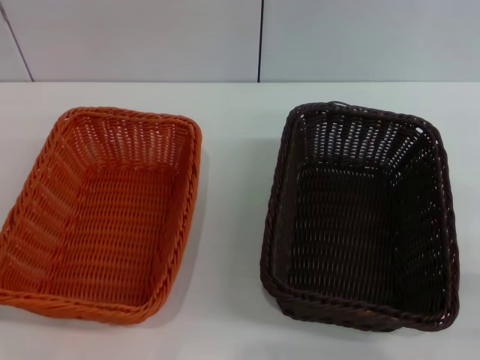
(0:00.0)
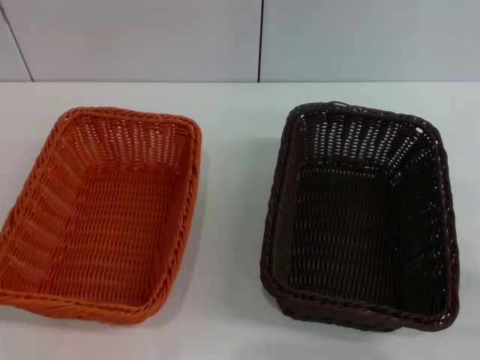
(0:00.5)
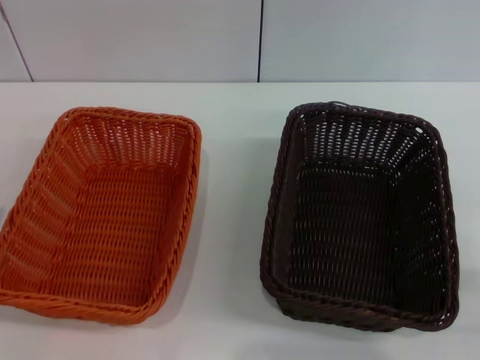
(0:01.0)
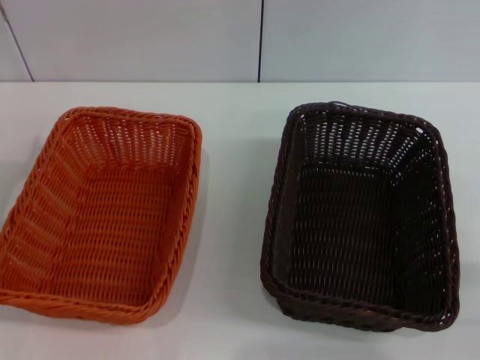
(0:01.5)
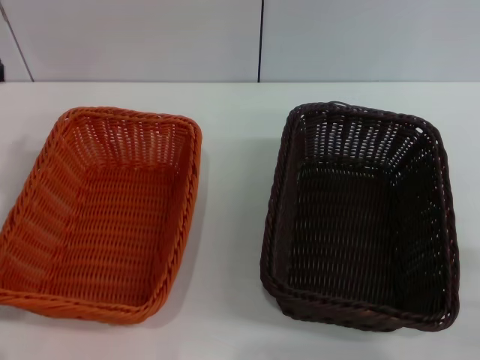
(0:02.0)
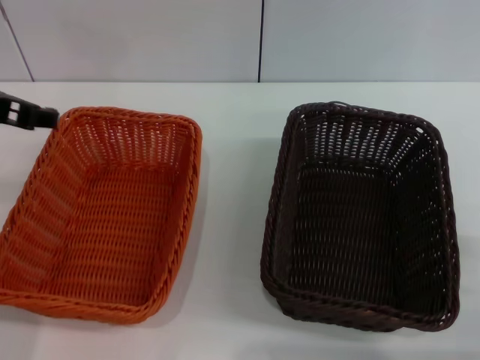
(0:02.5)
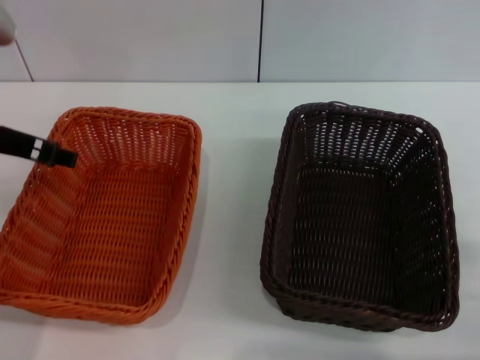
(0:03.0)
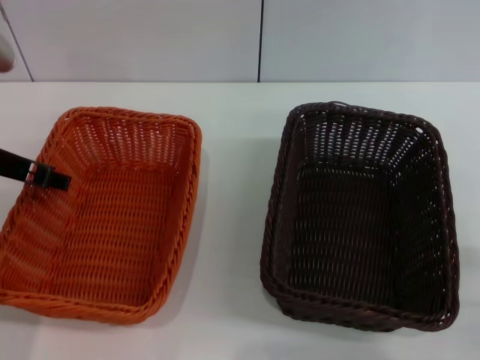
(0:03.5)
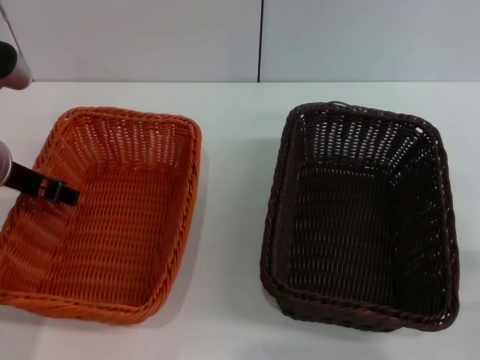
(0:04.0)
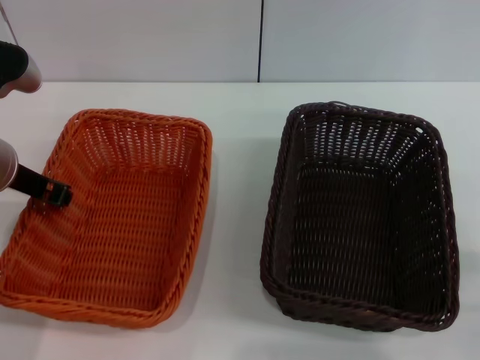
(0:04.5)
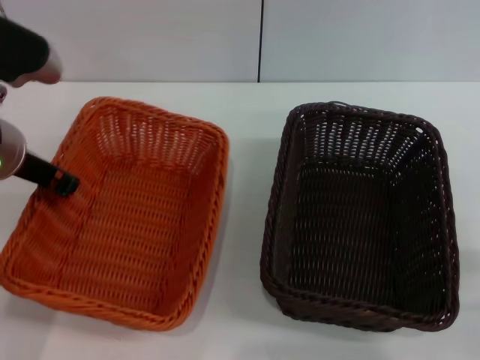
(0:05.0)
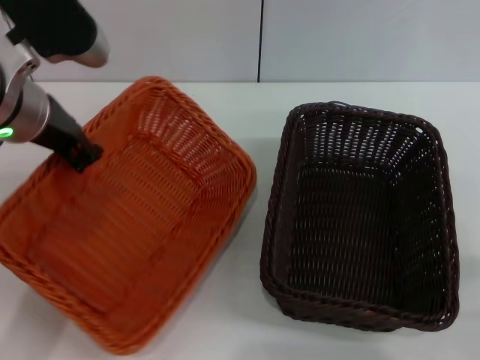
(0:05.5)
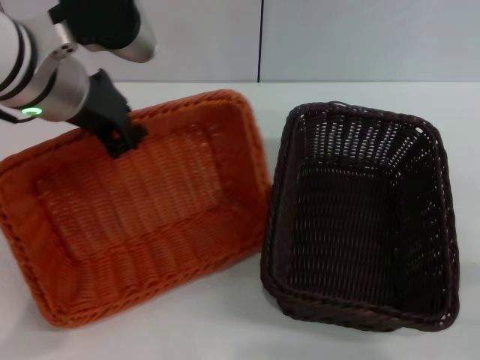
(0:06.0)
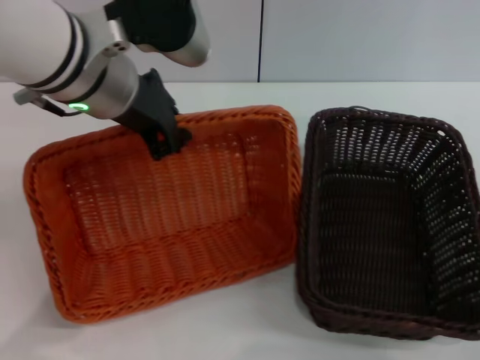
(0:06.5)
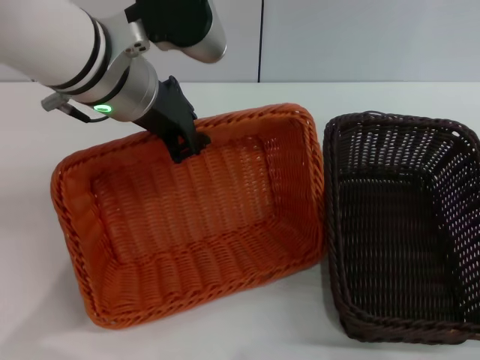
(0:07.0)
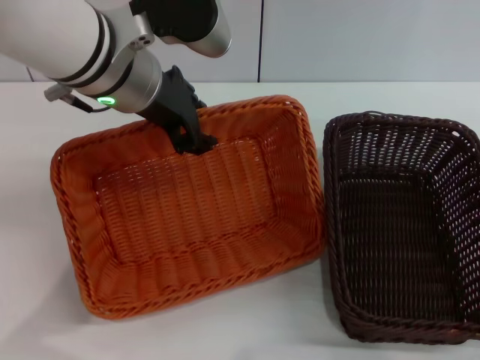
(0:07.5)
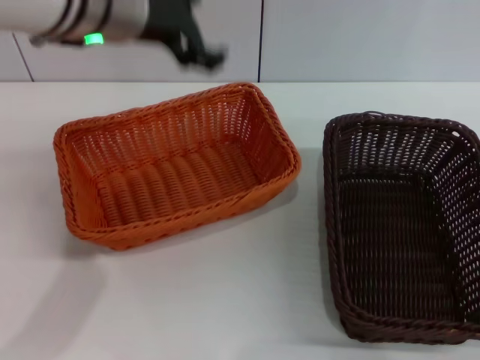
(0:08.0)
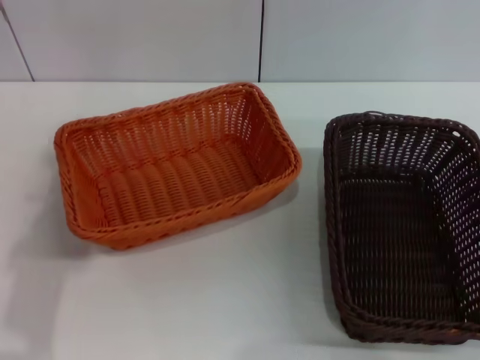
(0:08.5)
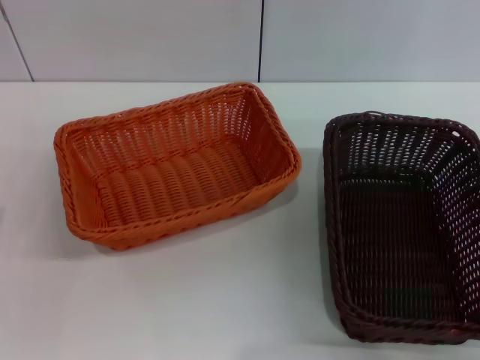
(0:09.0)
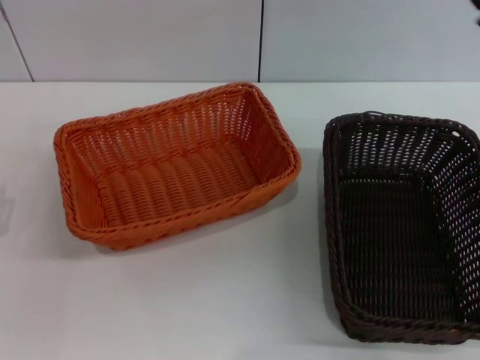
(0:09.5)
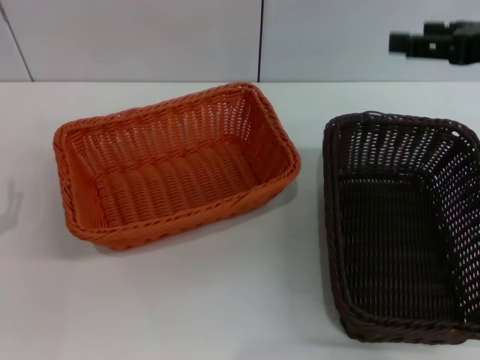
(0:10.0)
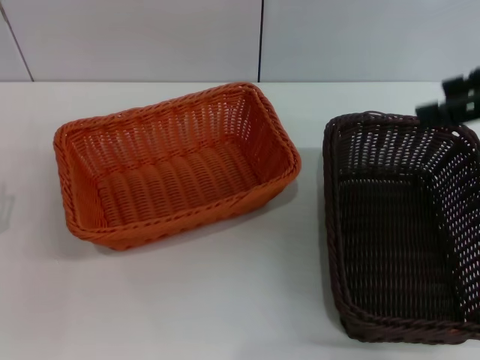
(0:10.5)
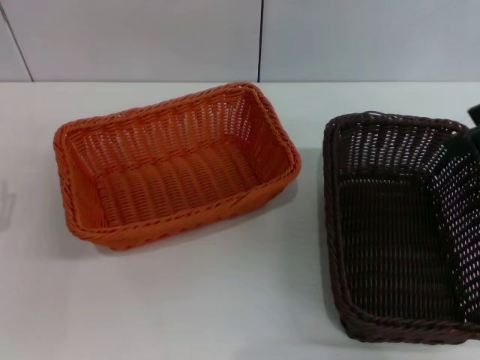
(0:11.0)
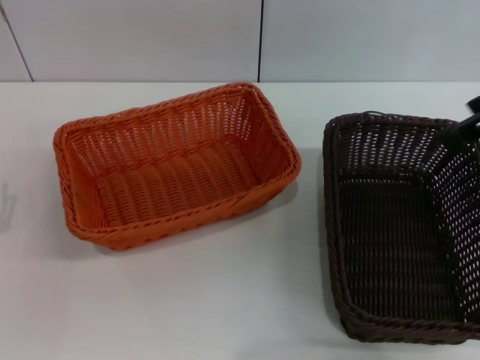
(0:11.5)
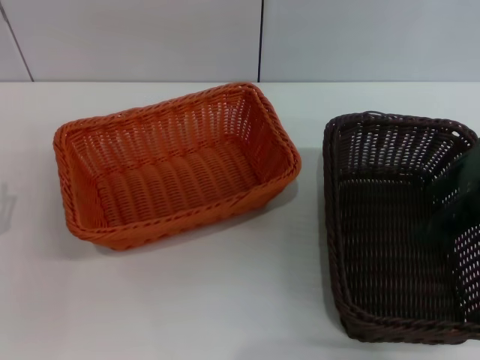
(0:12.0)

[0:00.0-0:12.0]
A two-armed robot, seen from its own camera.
Step, 0:00.0 to 0:05.0: Pick up the light basket with the left gripper.
Step, 0:05.5 to 0:07.5: Place the light basket in the center of view with the left gripper.
0:02.0 to 0:04.0: The left gripper travels downward by about 5 cm.
0:04.0 to 0:06.0: The left gripper moves upward and to the right, about 10 cm, and closes.
0:06.0 to 0:08.0: The left gripper moves approximately 5 cm, and opens.
0:08.0 to 0:10.0: The right gripper shifts approximately 25 cm upward and forward, while the left gripper is displaced downward, to the left and backward by approximately 35 cm.
0:10.0 to 0:12.0: The right gripper is displaced to the left by approximately 5 cm.

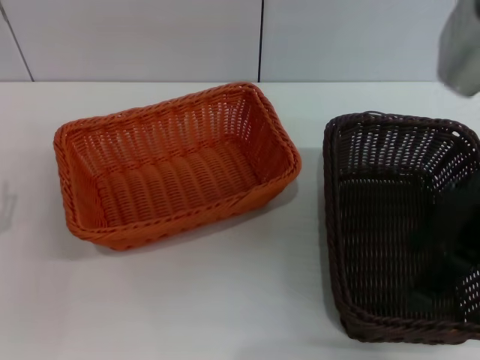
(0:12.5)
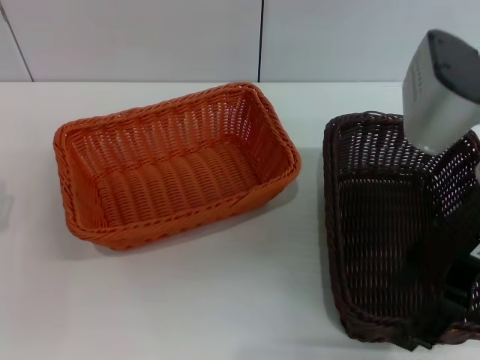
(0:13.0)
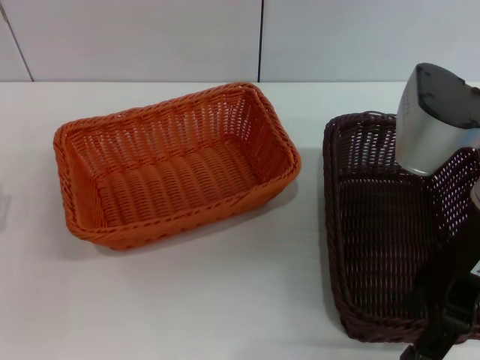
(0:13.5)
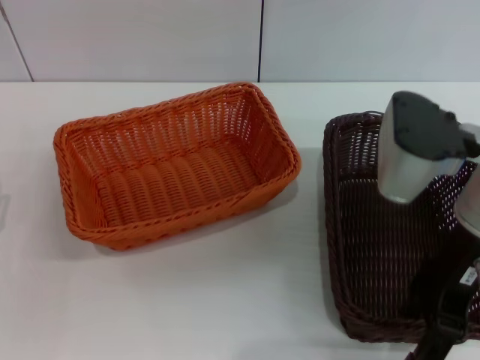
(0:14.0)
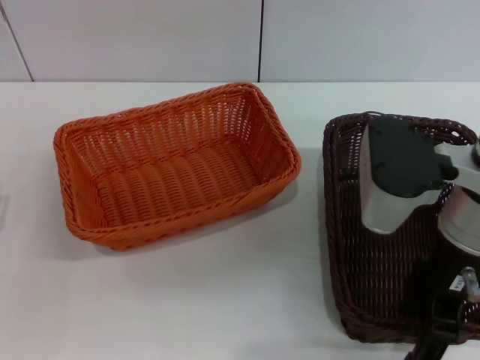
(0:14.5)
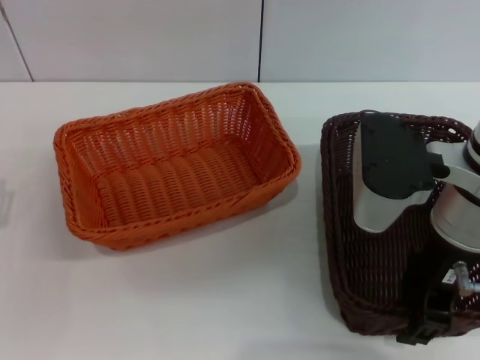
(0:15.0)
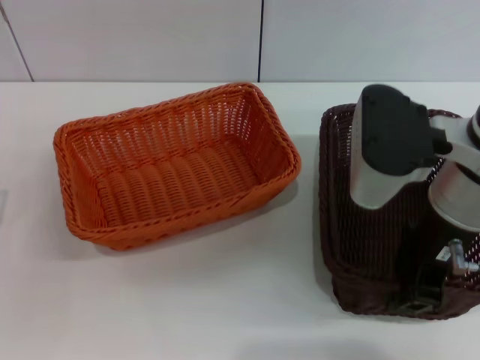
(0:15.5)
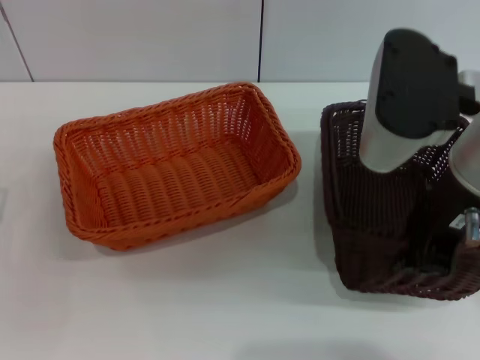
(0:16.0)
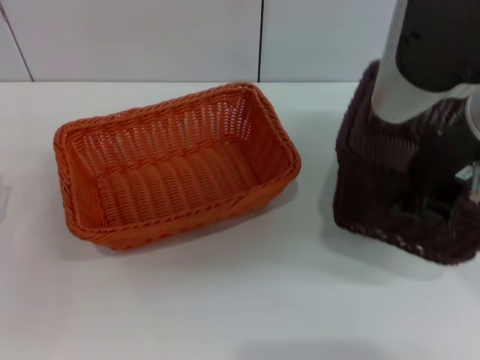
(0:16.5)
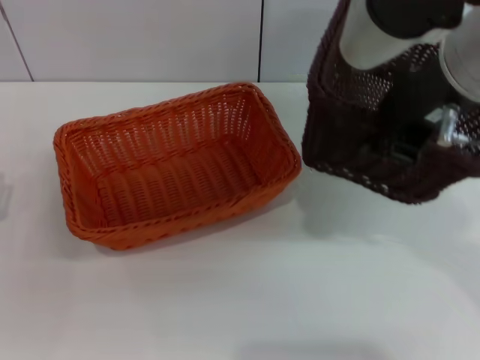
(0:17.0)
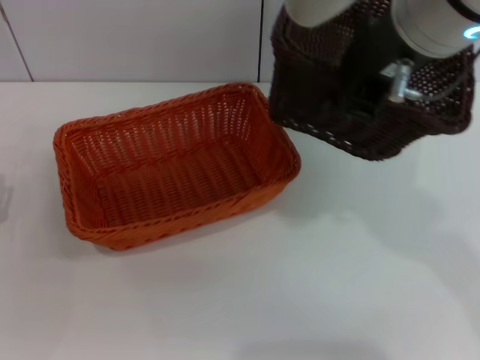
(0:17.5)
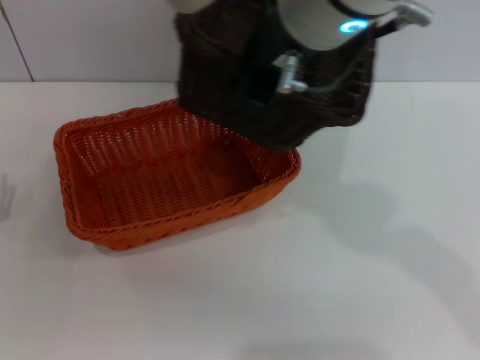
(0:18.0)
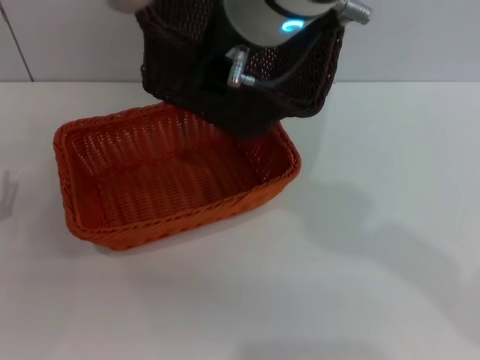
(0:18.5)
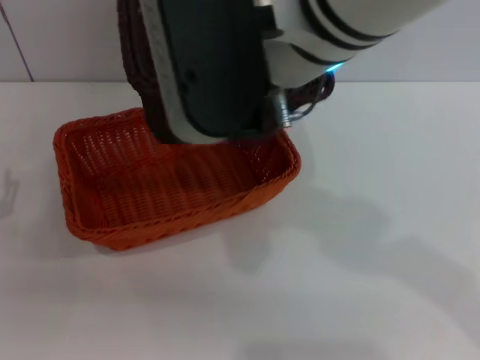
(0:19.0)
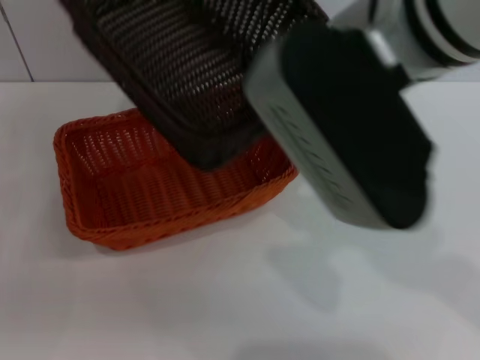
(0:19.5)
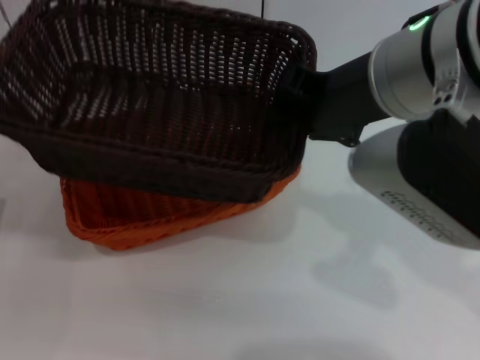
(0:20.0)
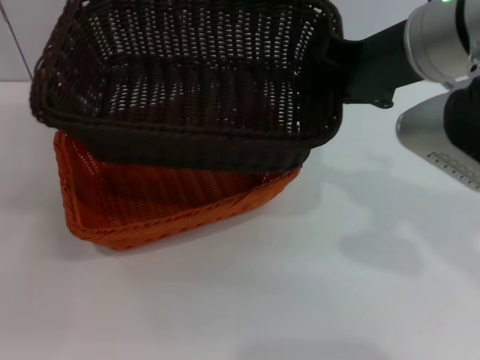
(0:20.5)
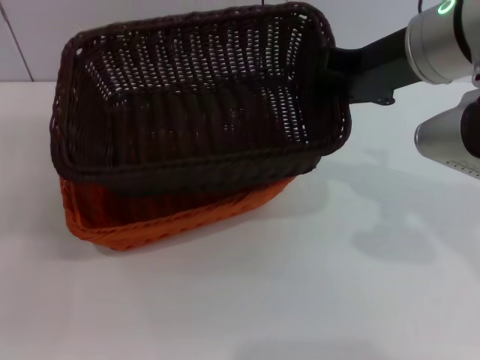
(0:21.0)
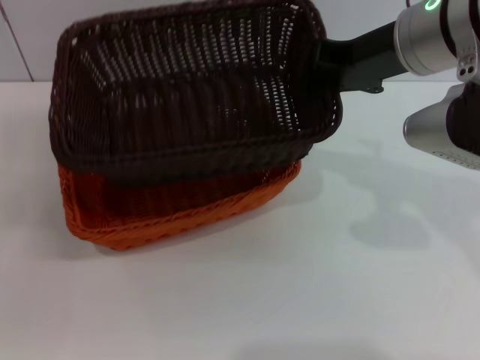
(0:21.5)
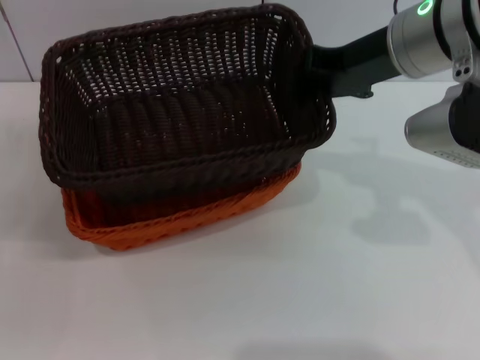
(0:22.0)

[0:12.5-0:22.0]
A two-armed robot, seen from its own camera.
Step, 0:12.5 to 0:16.0: Pick up the dark basket with the right gripper.
0:12.5 to 0:14.5: The right gripper is displaced downward by about 10 cm.
0:14.5 to 0:16.5: The right gripper goes roughly 10 cm upward, and closes up.
0:16.5 to 0:18.0: The right gripper heads to the left, covering some 10 cm.
0:18.0 to 0:20.0: The right gripper moves to the right, some 5 cm.
0:20.0 to 0:22.0: The right gripper travels forward by about 10 cm.

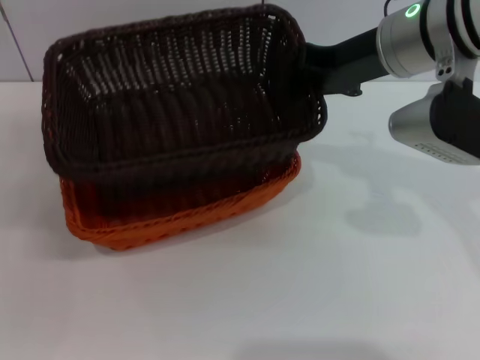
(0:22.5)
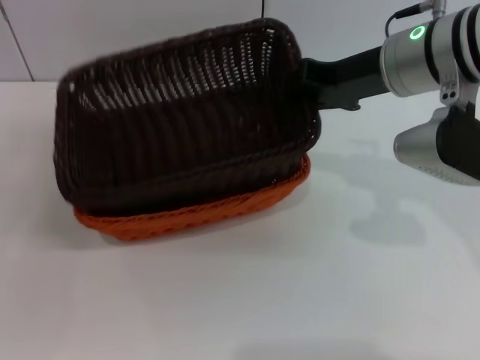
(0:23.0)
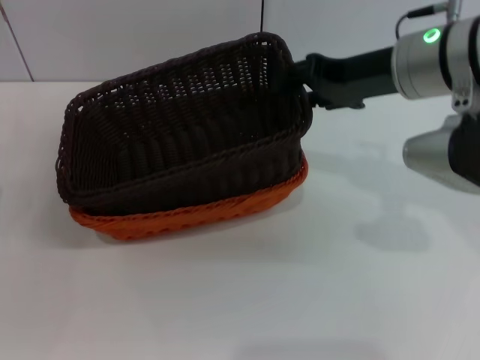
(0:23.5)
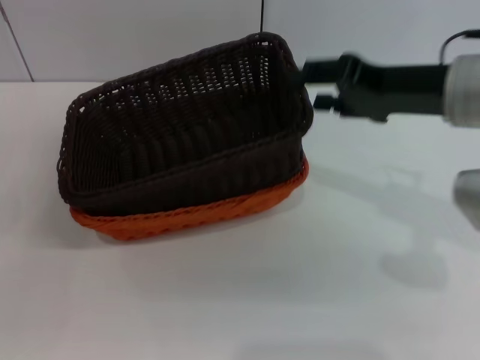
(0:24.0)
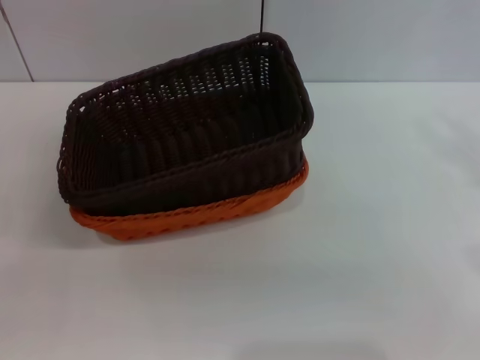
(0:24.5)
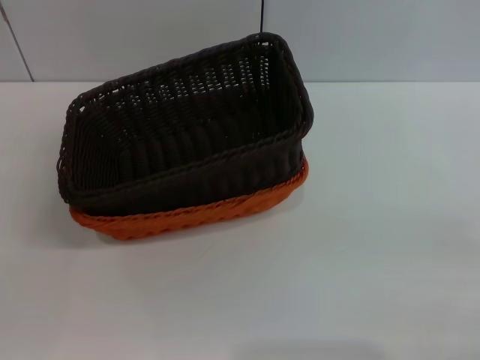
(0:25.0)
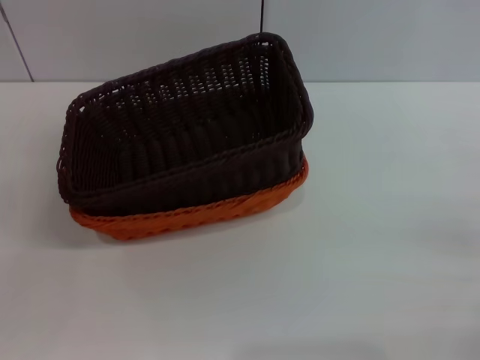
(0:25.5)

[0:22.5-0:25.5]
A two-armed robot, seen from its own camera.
0:22.5 to 0:24.0: The right gripper travels backward by some 5 cm, and opens up.
0:24.0 to 0:25.5: The right gripper is displaced to the right, downward and backward by roughly 30 cm.

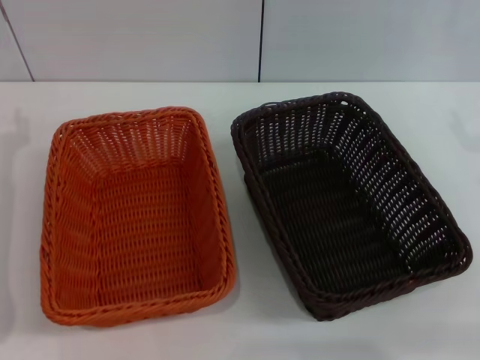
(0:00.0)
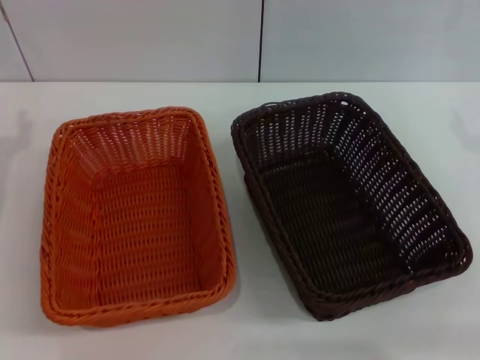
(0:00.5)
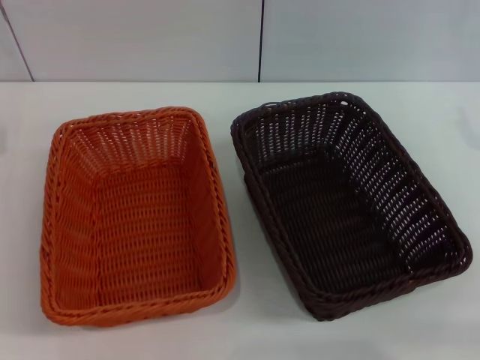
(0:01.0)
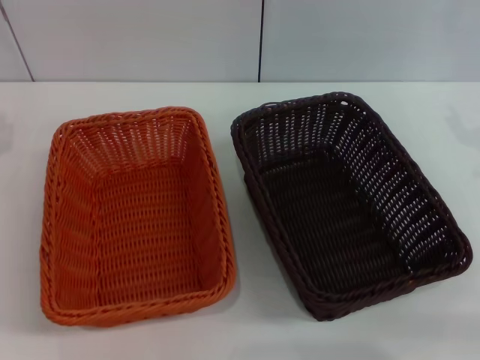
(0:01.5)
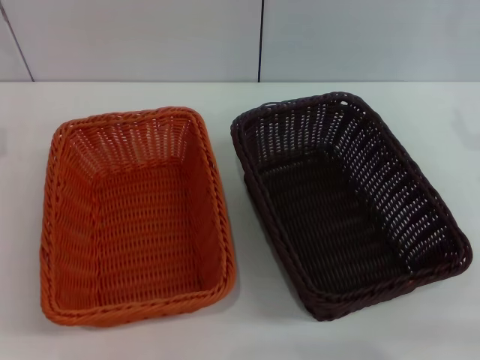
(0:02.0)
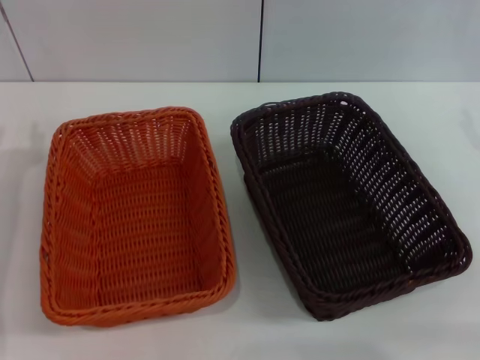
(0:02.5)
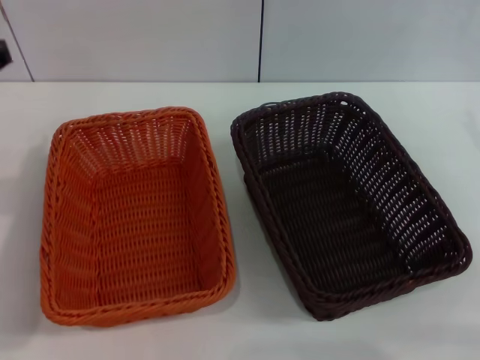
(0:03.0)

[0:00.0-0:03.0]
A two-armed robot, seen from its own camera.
0:01.5 to 0:03.0: The left gripper heads upward and to the right, covering about 15 cm.
